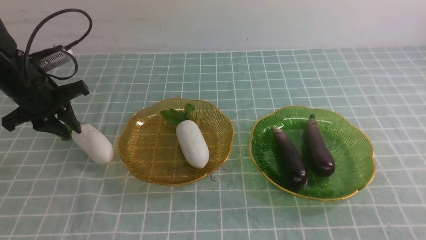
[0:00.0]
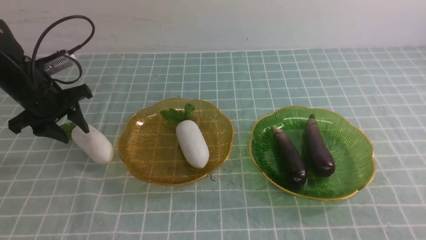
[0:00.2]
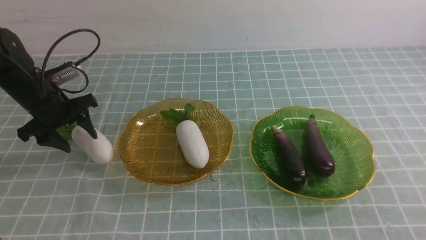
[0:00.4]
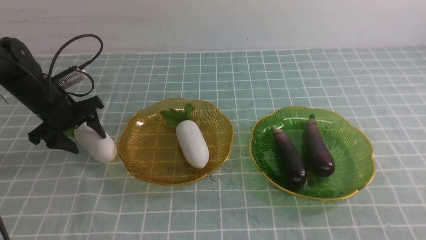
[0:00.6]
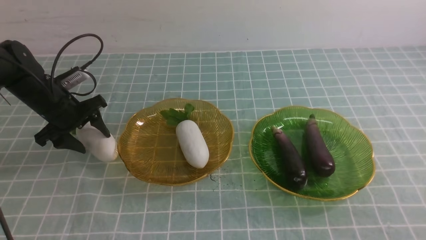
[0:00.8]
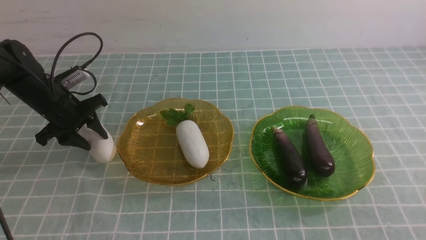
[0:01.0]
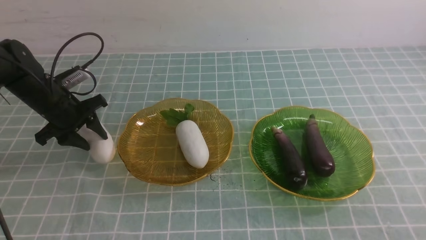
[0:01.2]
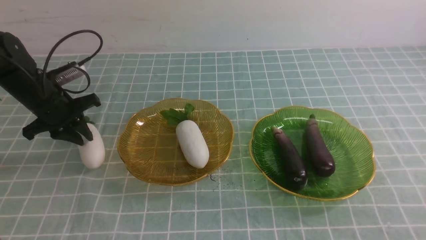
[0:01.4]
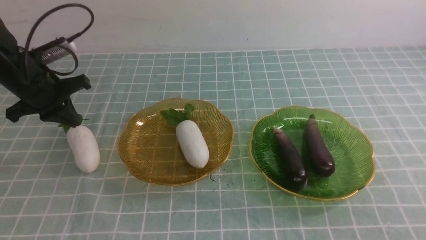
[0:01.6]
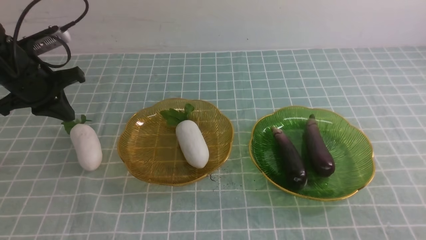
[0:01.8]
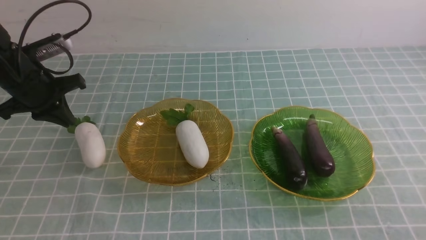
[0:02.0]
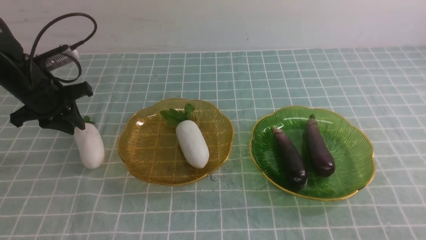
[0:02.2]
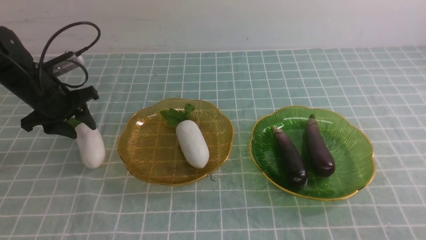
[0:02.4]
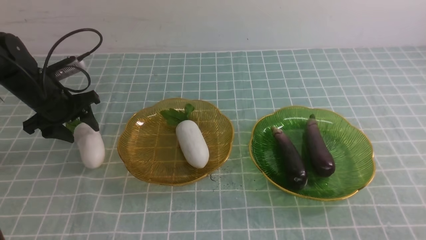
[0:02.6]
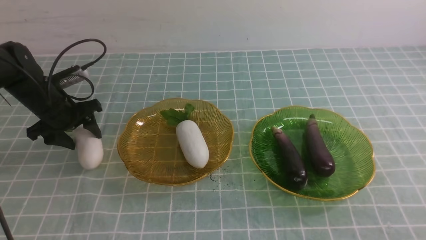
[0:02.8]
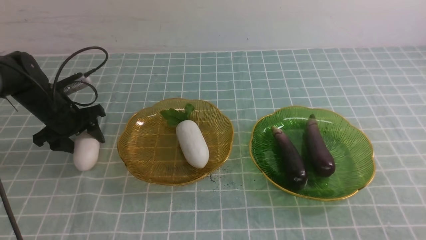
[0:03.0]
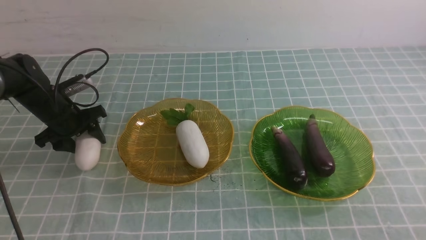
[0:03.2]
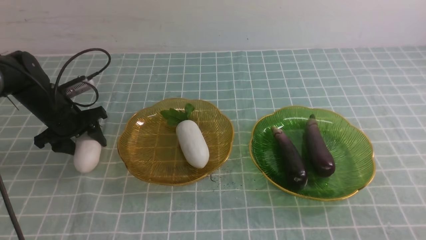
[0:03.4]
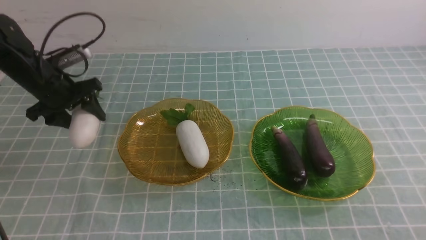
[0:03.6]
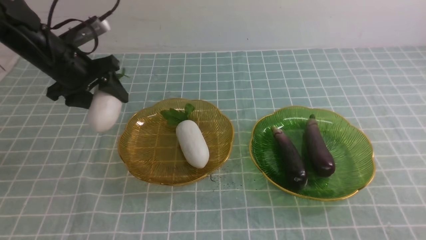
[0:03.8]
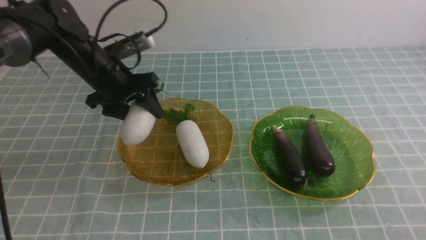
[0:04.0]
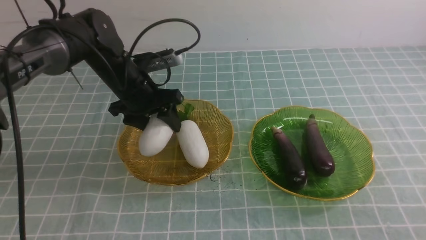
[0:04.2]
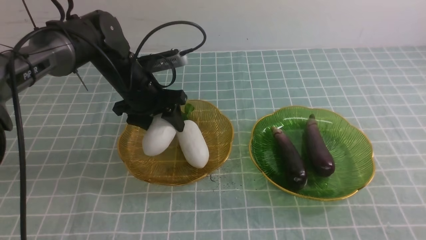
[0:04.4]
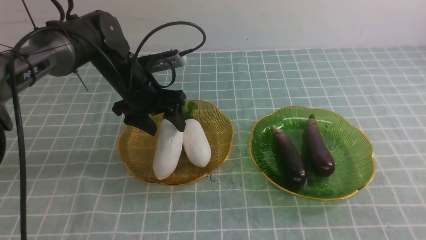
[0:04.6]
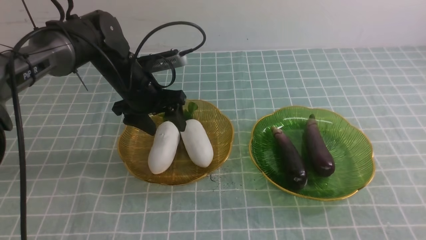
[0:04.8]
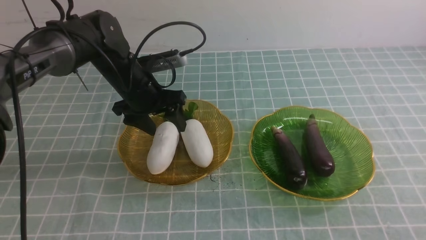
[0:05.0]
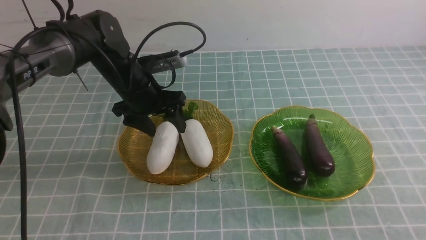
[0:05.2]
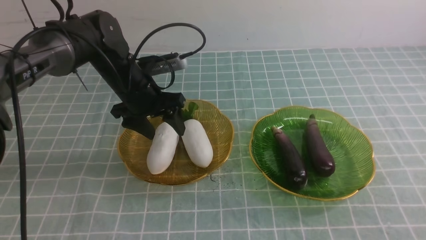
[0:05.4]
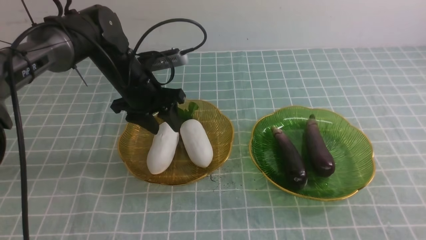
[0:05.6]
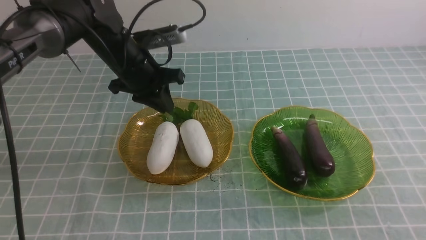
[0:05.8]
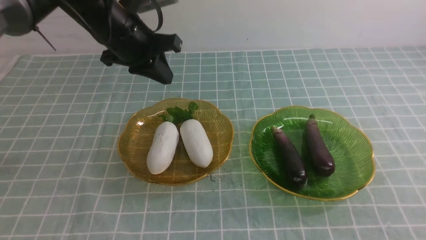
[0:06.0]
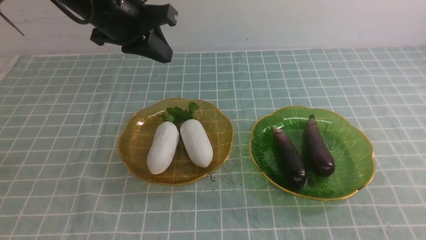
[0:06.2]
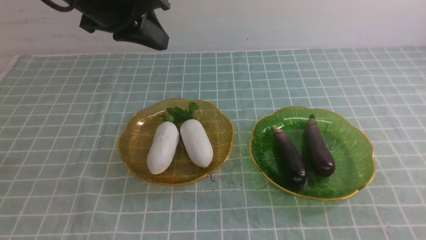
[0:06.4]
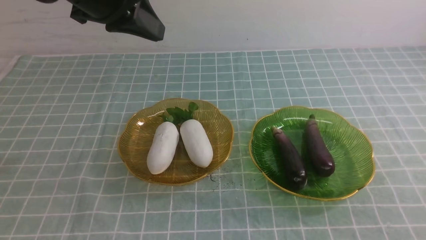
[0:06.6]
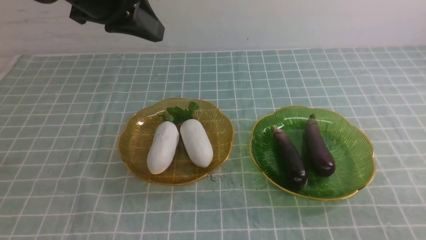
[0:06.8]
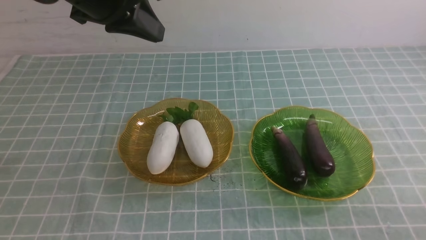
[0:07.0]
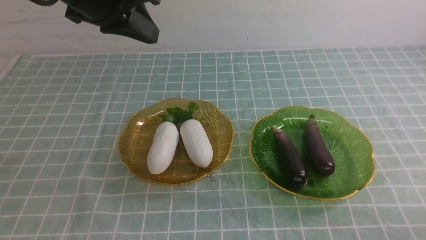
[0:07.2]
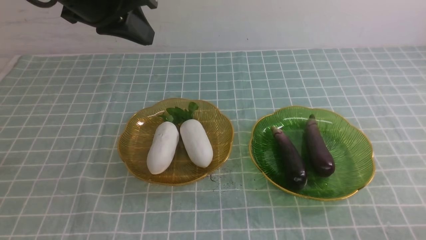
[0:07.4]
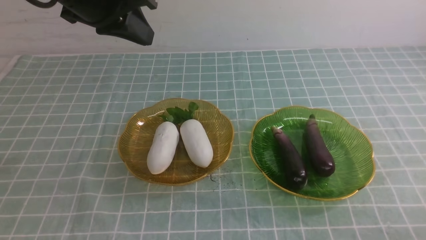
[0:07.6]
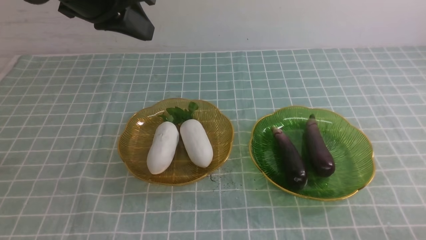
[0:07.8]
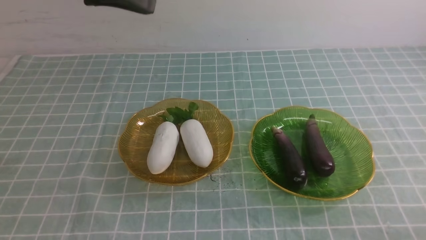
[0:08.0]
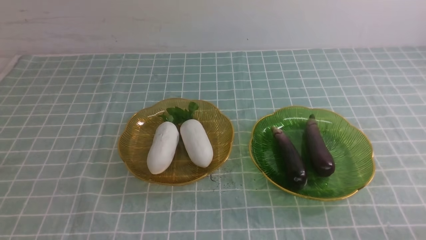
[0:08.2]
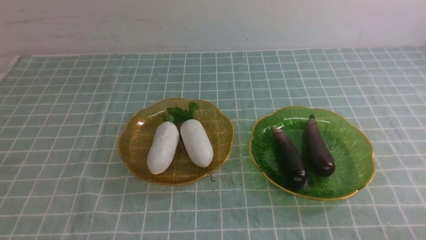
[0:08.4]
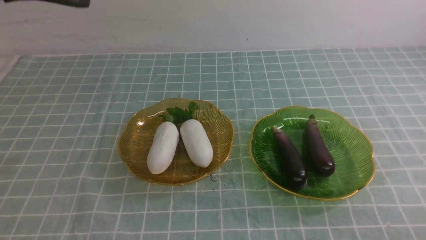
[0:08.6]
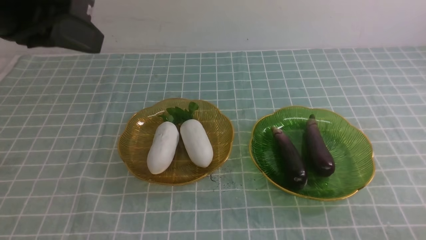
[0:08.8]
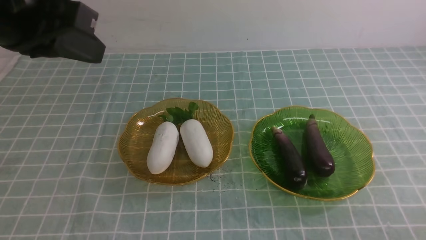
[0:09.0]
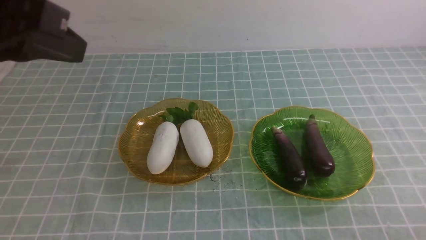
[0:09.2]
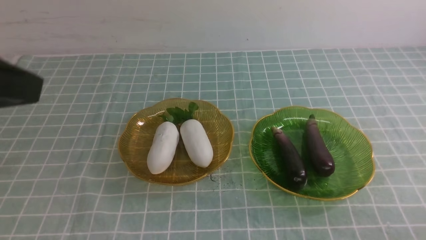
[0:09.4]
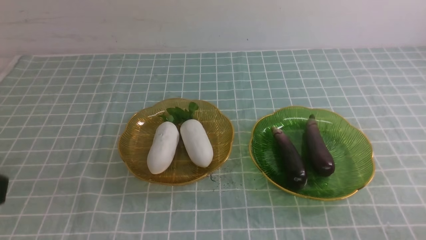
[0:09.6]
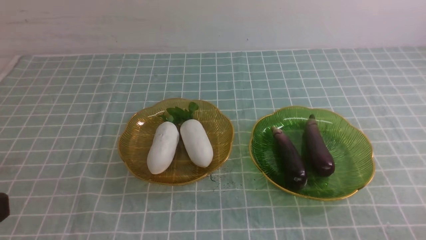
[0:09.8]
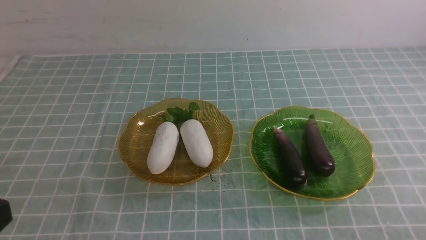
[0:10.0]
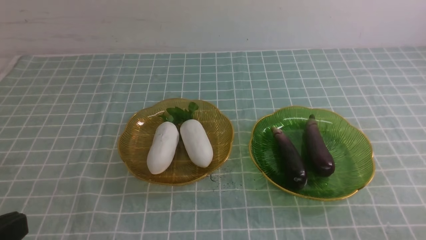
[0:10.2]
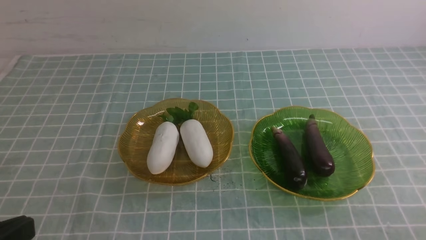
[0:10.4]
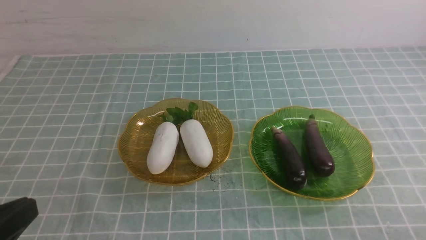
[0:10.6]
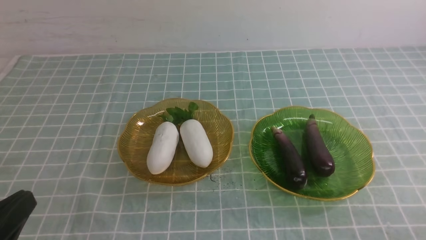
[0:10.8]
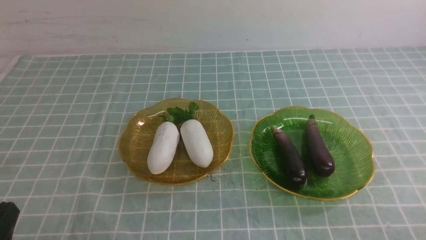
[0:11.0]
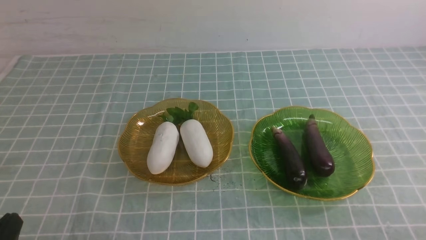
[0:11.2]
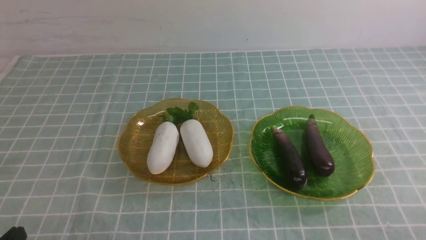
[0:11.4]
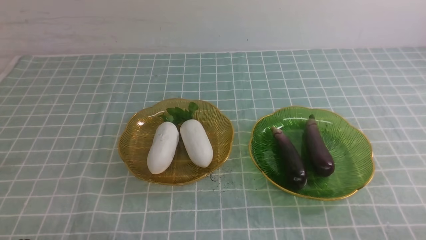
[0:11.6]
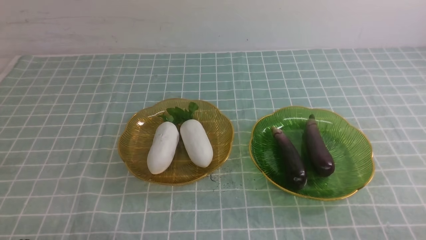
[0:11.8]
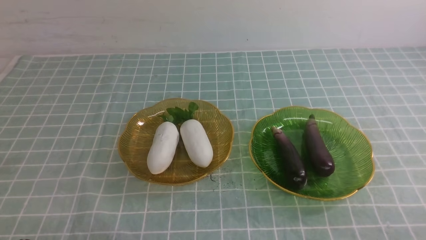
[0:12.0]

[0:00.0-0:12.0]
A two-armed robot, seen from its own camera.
Step, 0:00.0 to 0:05.0: use the left arm to grab a radish and put it into the left plate.
0:00.0 to 0:01.6: The left gripper opens, then closes once more.
0:01.6 to 0:03.0: The left gripper heads downward, covering some 5 cm, and opens up.
0:03.0 to 0:04.4: The left gripper moves to the right, about 15 cm.
0:04.4 to 0:06.0: The left gripper moves upward, roughly 10 cm, and closes.
0:06.0 to 0:07.6: The left gripper travels upward and backward by approximately 10 cm. The right gripper travels downward by roughly 10 cm.
0:07.6 to 0:09.0: The left gripper is displaced backward by approximately 10 cm.
0:09.0 to 0:10.4: The left gripper shifts approximately 25 cm backward and downward.
0:10.4 to 0:12.0: The left gripper heads downward, covering roughly 15 cm.

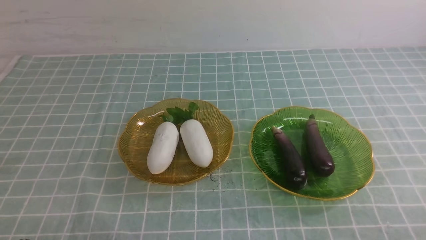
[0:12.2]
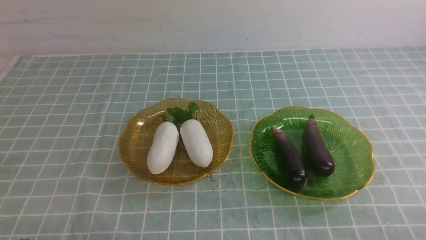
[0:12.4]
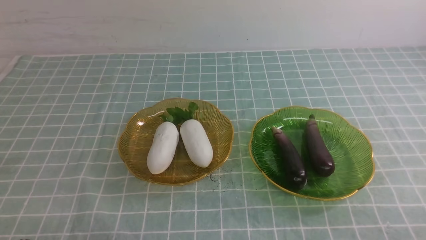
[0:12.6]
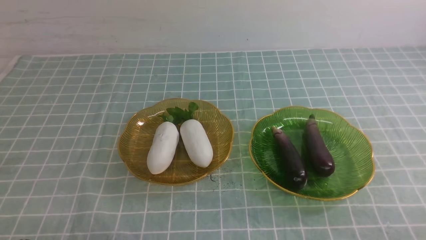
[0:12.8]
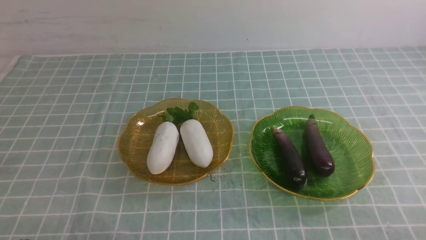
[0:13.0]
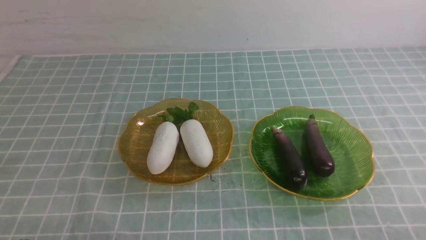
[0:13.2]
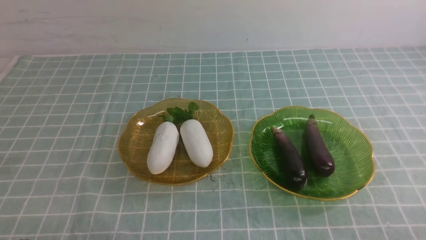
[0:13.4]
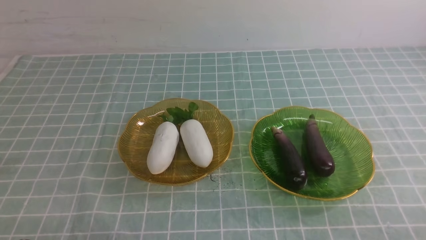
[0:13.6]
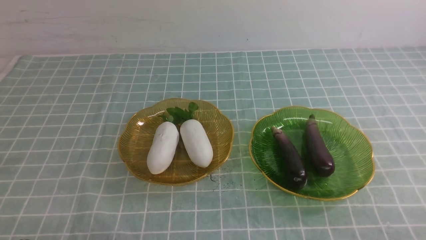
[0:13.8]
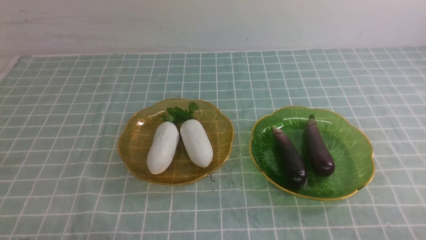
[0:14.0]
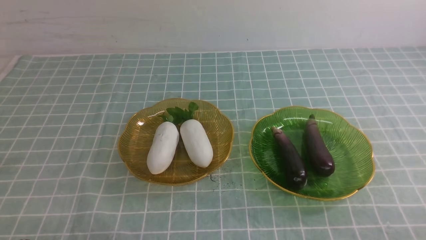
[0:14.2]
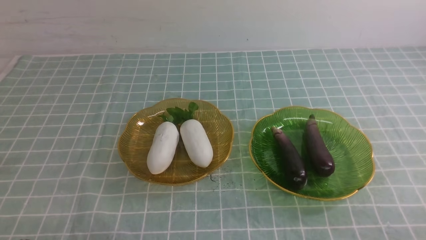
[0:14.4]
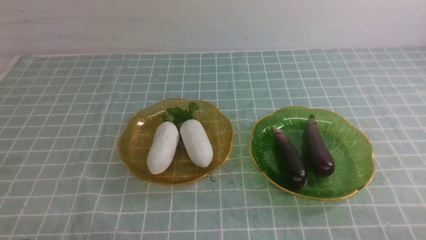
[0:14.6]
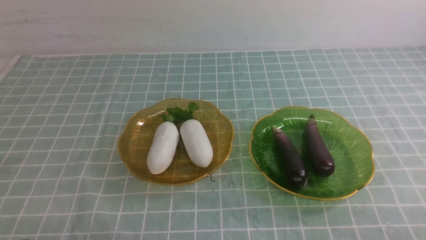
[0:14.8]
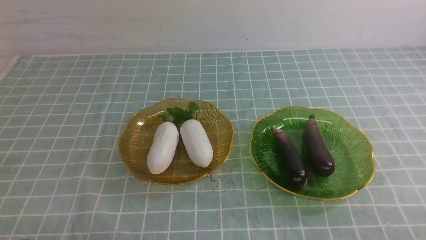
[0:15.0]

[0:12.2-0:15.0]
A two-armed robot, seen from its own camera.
0:12.2 to 0:15.0: Both grippers stay about where they are.
